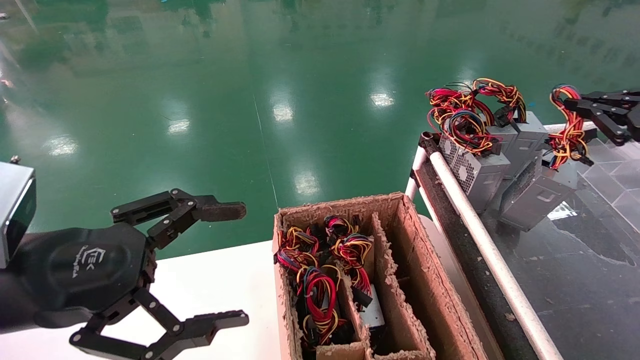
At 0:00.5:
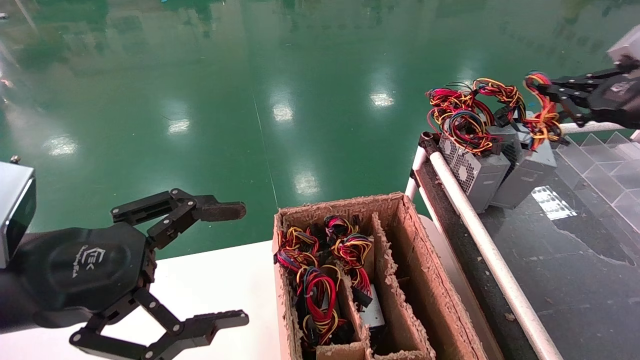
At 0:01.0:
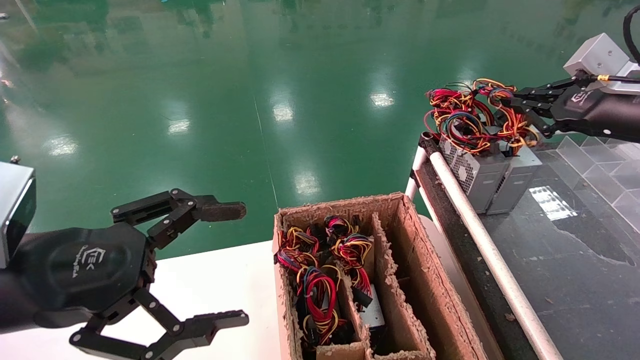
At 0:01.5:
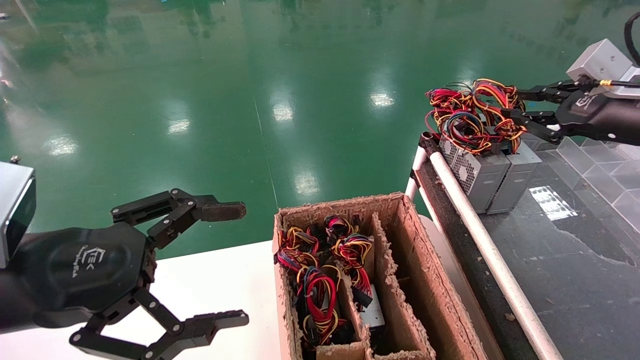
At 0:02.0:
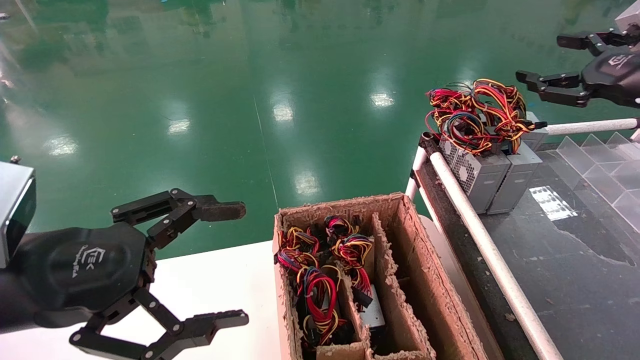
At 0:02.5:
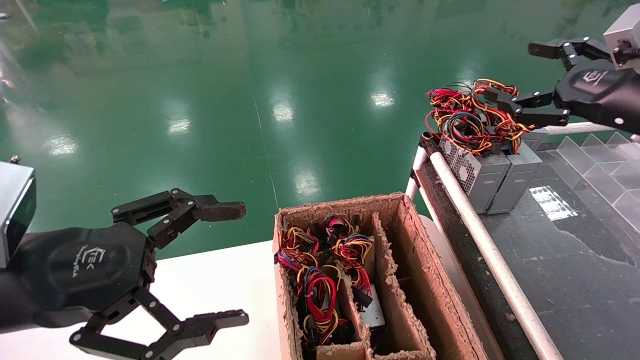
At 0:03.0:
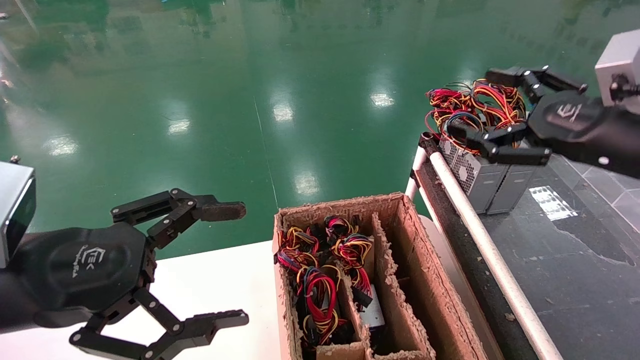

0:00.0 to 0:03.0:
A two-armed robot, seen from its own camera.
0:00.0 to 0:01.5: The right gripper heads to the left, covering approximately 5 cm.
0:01.5 to 0:03.0: The right gripper moves backward and to the left, roughly 10 cm, and opens.

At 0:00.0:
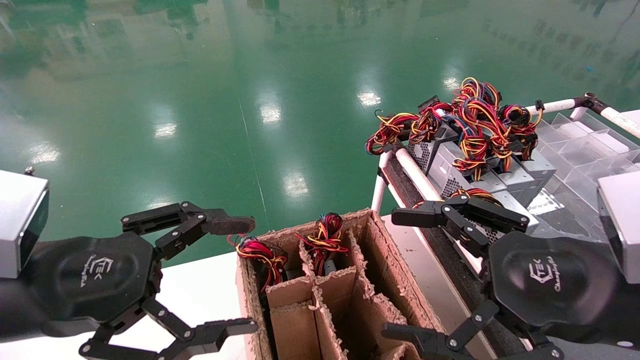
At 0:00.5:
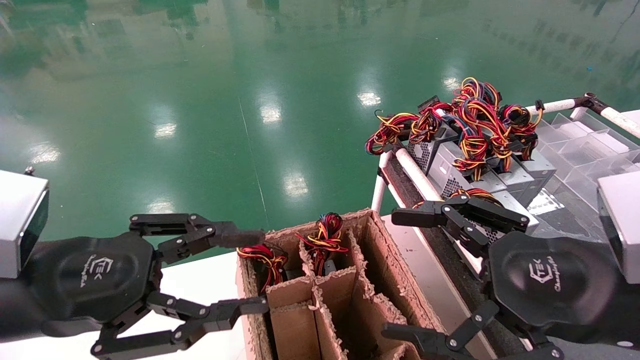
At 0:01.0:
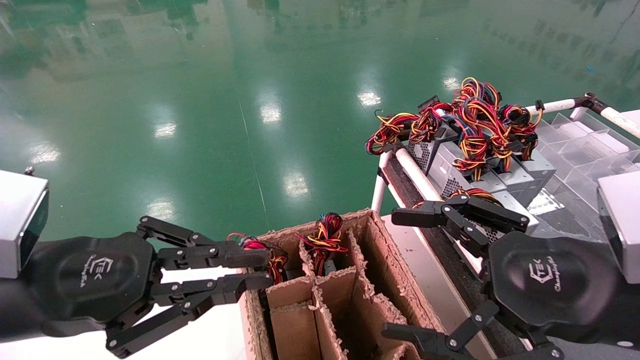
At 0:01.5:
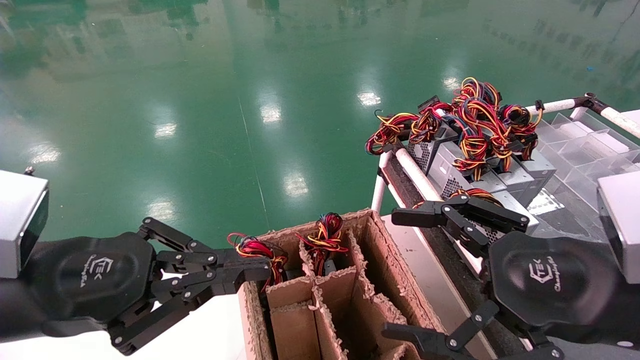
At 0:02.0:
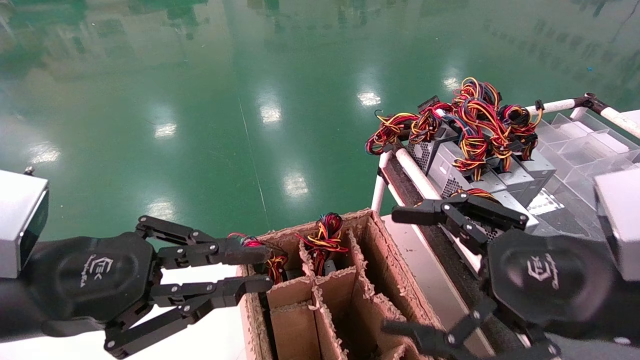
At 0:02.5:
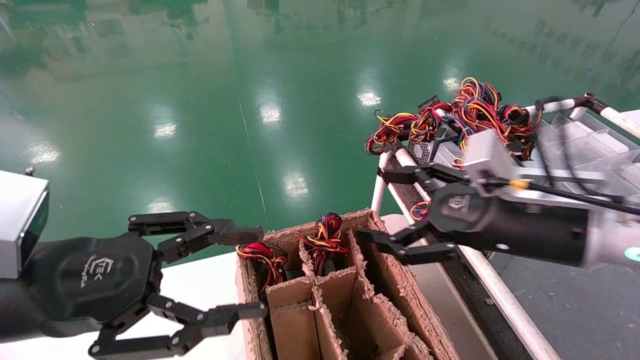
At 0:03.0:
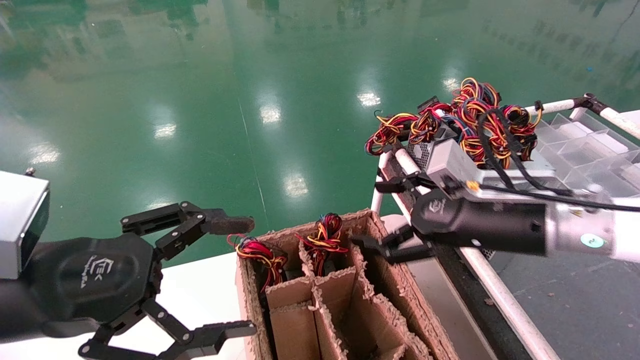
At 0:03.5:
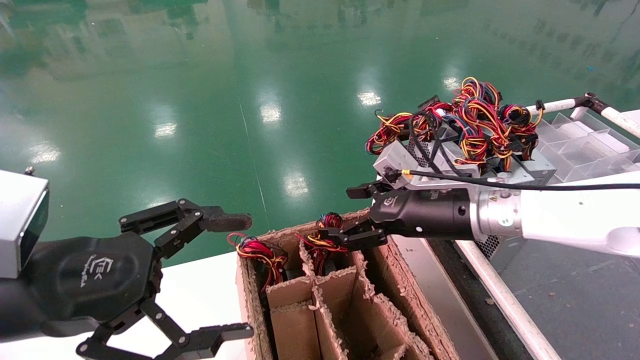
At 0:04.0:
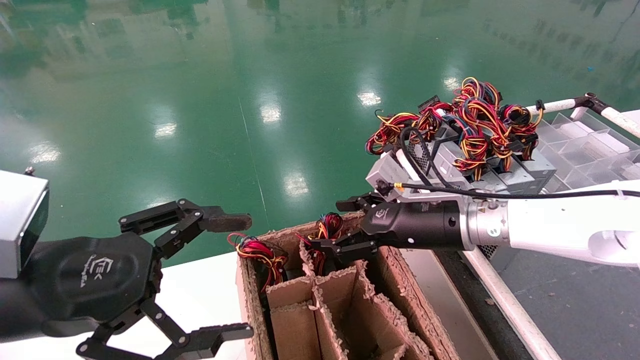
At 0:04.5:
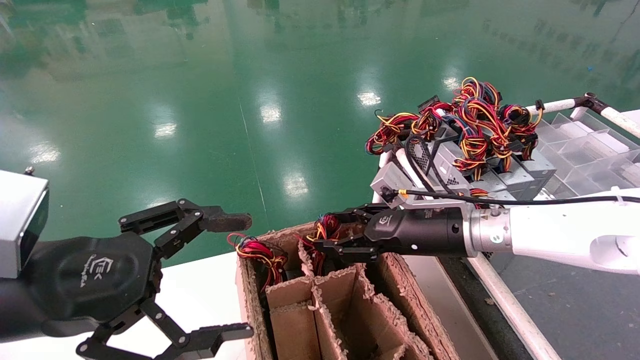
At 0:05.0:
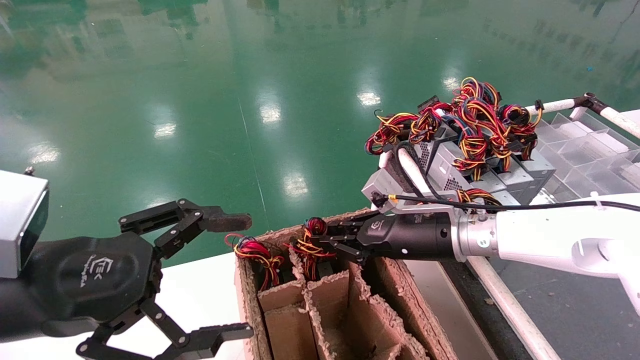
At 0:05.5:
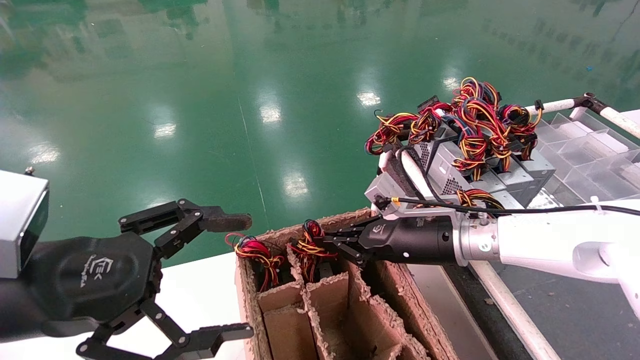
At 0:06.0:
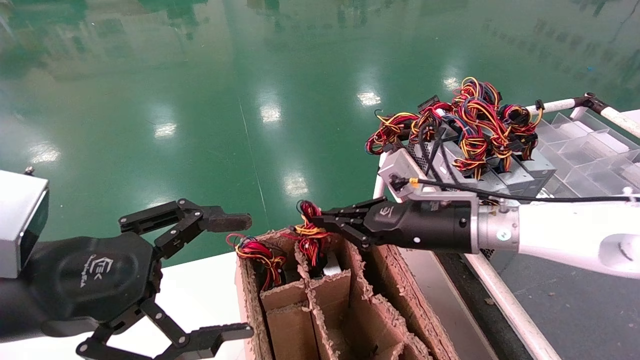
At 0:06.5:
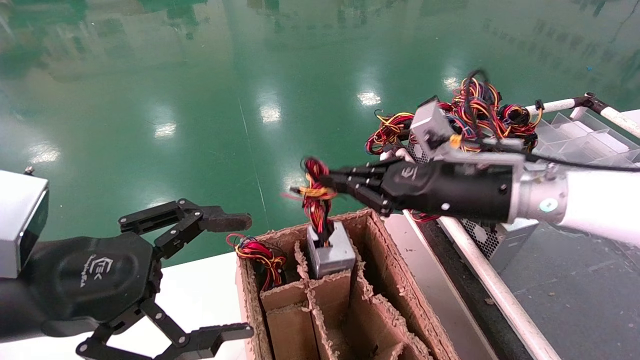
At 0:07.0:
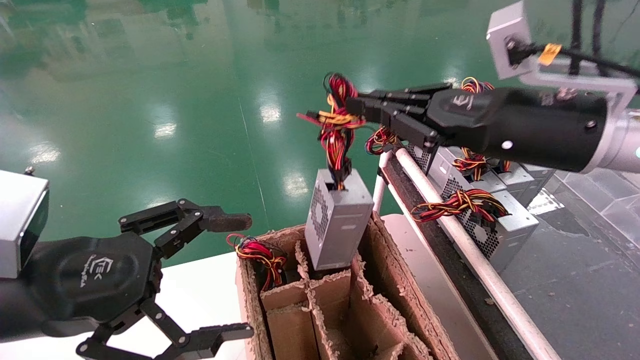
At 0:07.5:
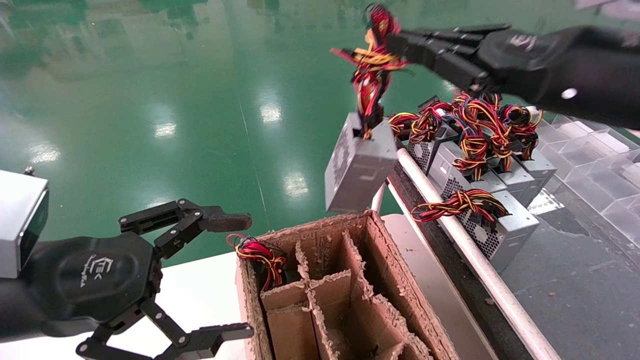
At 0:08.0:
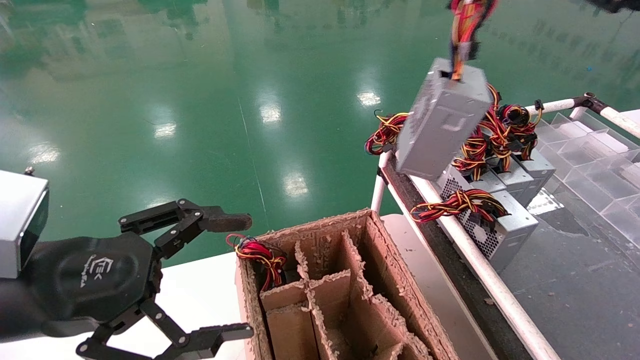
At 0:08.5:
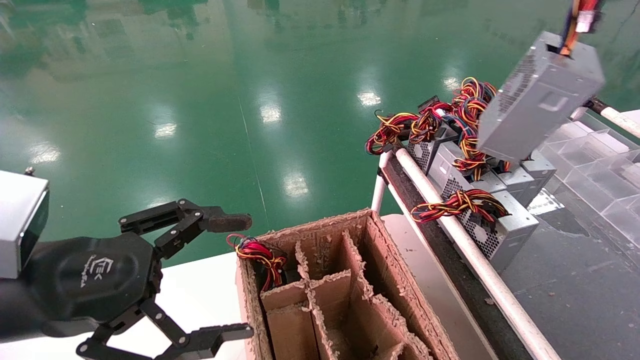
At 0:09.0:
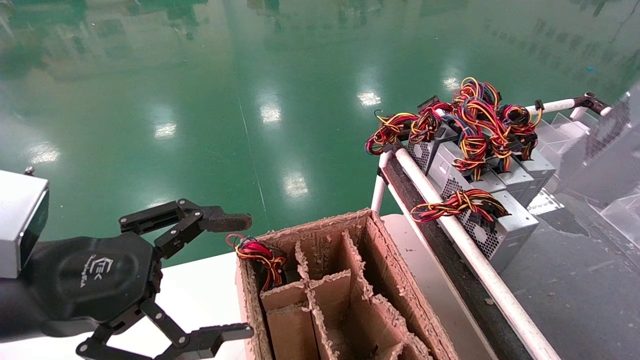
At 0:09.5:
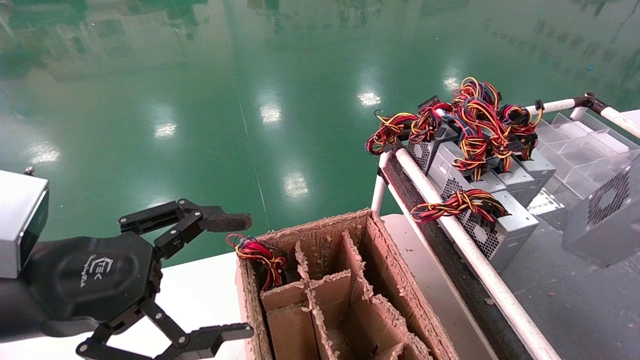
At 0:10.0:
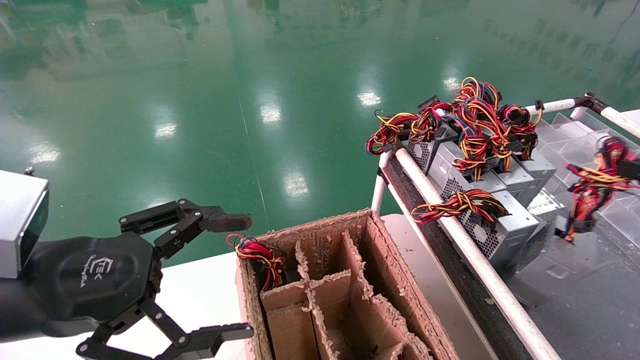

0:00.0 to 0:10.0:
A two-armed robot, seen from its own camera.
Step, 0:01.5 to 0:05.0: Grab and lift the power supply from the large box.
0:00.0 to 0:02.0: The left gripper closes.
0:02.0 to 0:04.0: The left gripper opens its fingers. The right gripper moves forward and to the left, roughly 20 cm.
0:04.0 to 0:06.0: The right gripper closes up.
0:06.0 to 0:08.0: The right gripper moves upward, to the right and backward, roughly 30 cm.
0:08.0 to 0:10.0: The right gripper goes approximately 20 cm downward and to the right.

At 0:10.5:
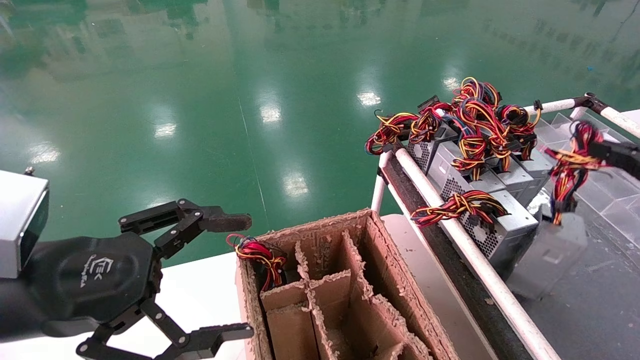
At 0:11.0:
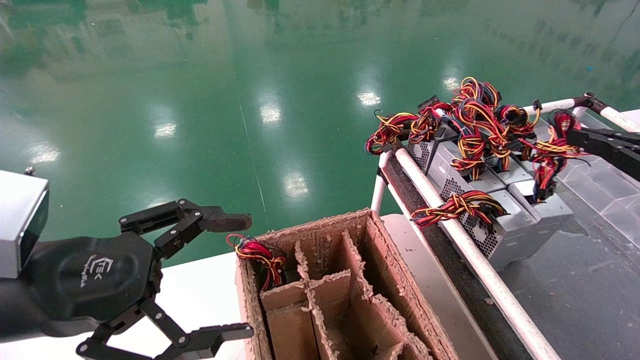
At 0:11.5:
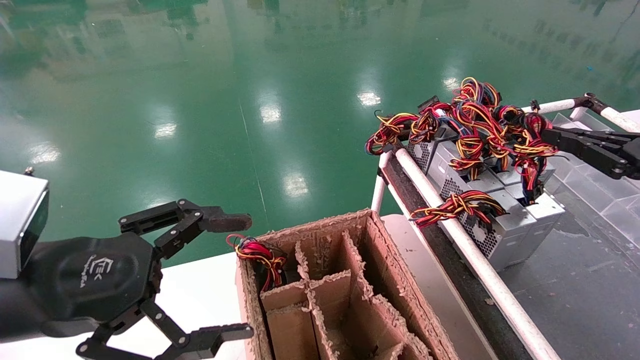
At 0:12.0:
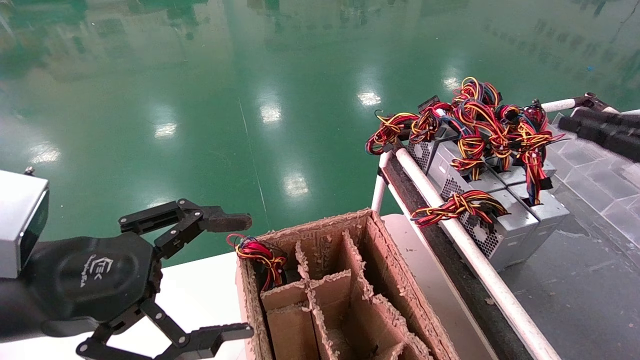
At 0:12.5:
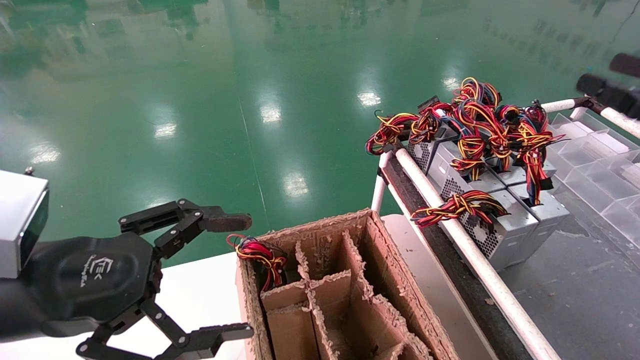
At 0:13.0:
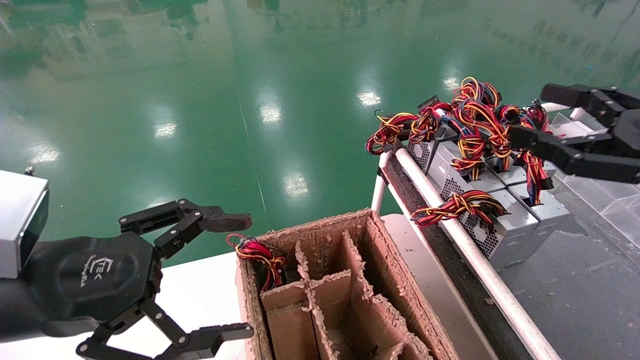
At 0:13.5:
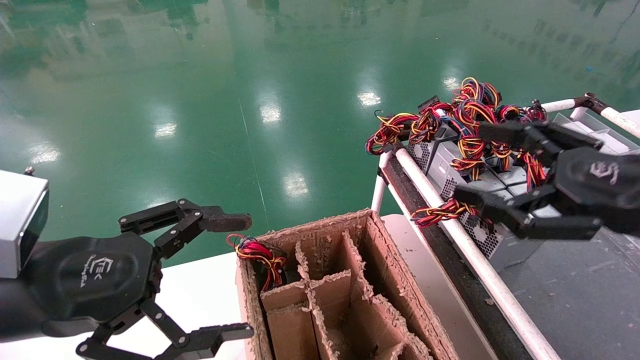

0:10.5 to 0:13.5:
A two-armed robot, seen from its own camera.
0:10.5 to 0:12.0: The grippers stay close to where they were, moving slightly.
0:12.0 to 0:13.5: The right gripper heads to the left, covering some 10 cm, and opens up.

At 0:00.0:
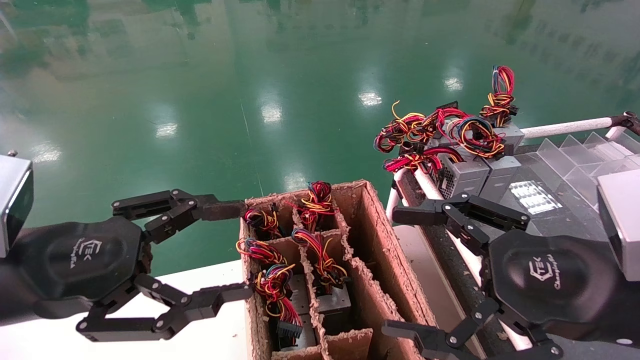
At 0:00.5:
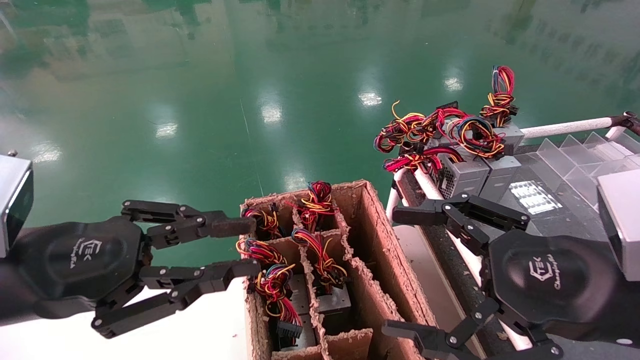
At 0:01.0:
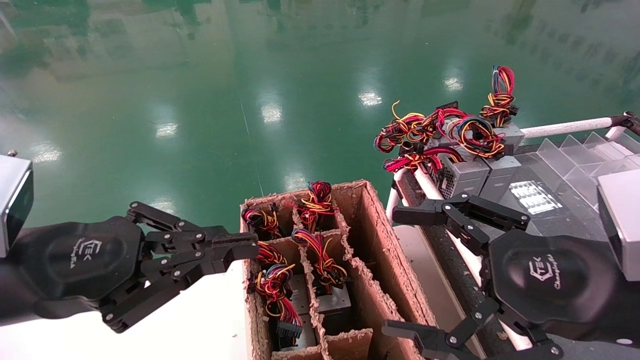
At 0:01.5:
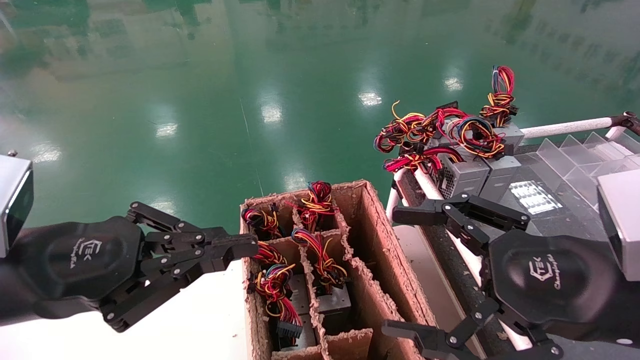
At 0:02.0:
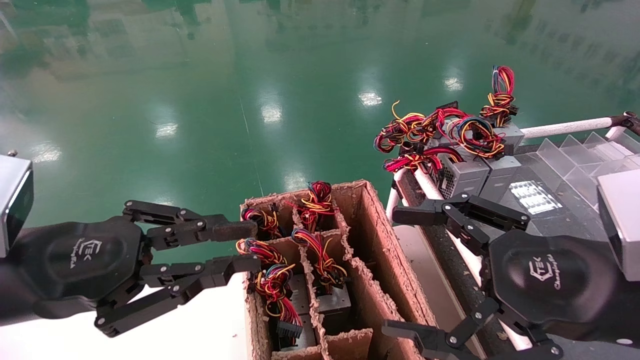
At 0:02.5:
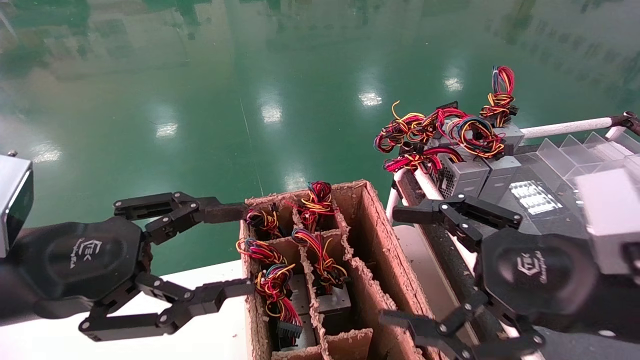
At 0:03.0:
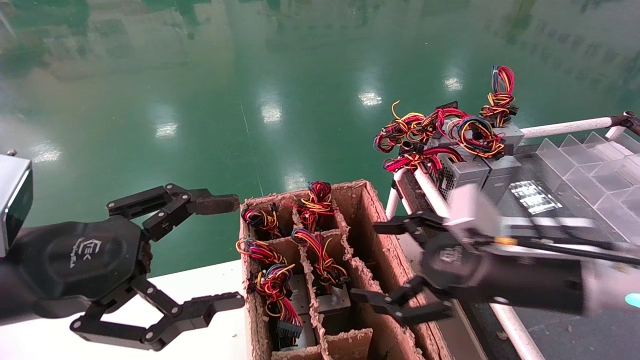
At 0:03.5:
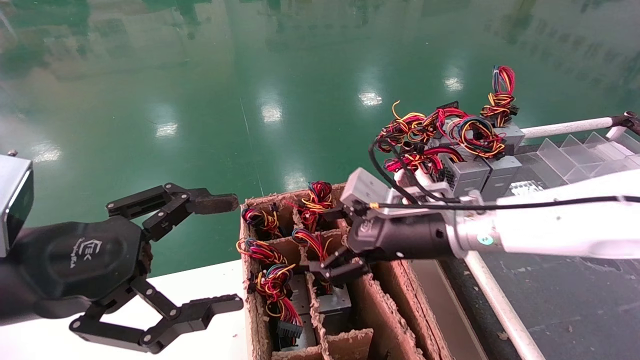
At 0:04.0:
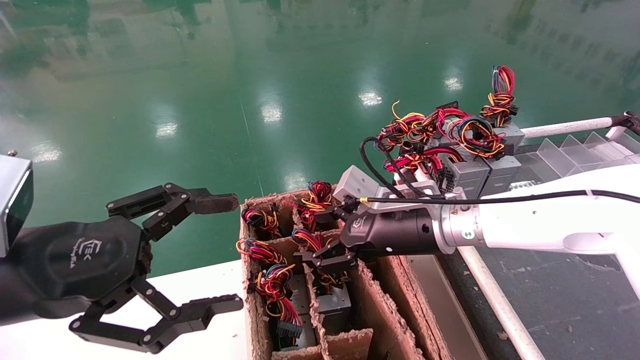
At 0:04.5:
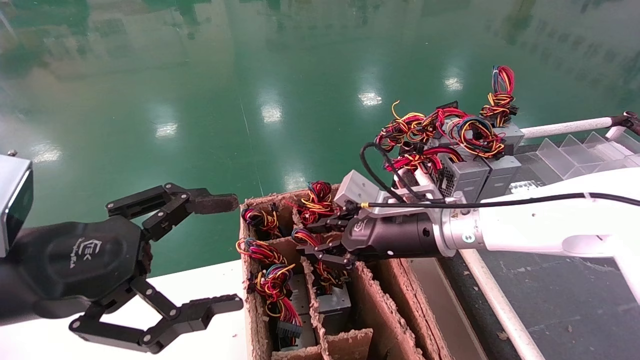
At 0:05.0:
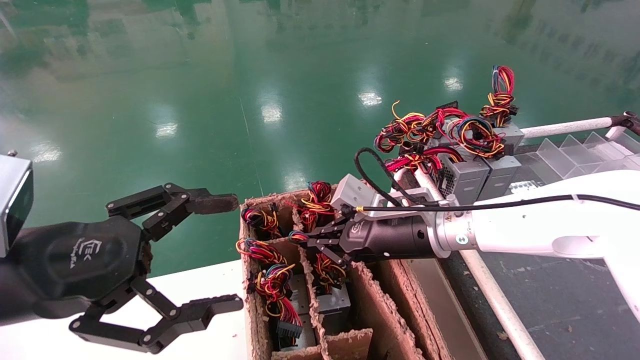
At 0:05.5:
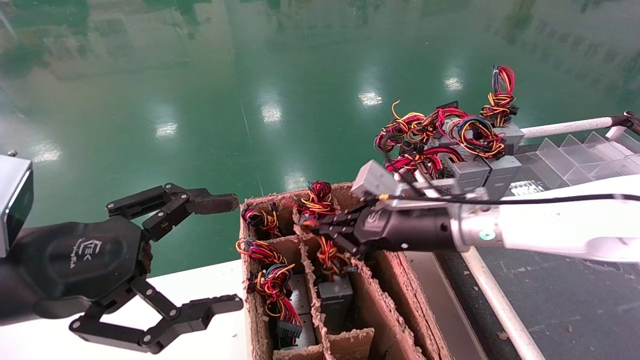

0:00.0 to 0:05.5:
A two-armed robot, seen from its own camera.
Step, 0:01.0 to 0:05.0: Grab and lift the power supply from the large box.
0:00.0 to 0:02.0: The left gripper closes up.
0:02.0 to 0:03.5: The left gripper opens its fingers; the right gripper heads forward and to the left, covering some 20 cm.
0:03.5 to 0:05.5: The right gripper closes up.
